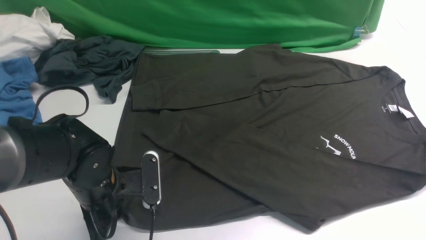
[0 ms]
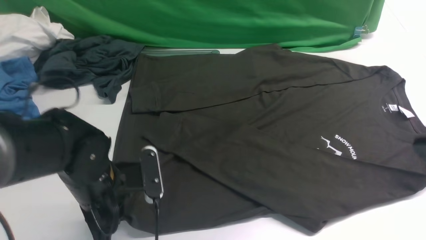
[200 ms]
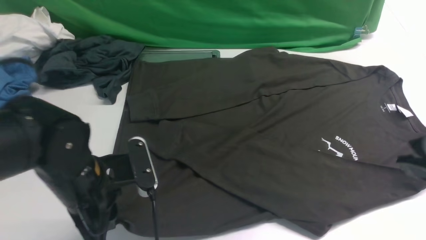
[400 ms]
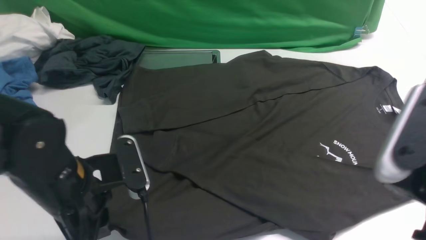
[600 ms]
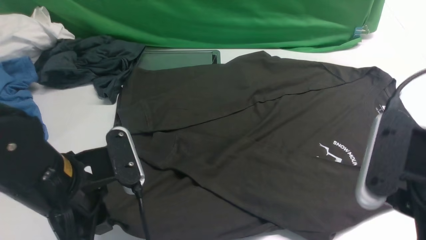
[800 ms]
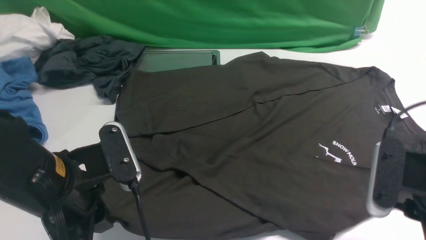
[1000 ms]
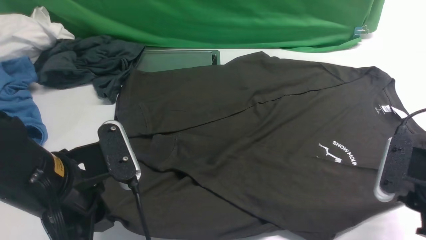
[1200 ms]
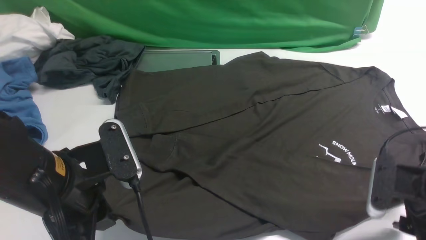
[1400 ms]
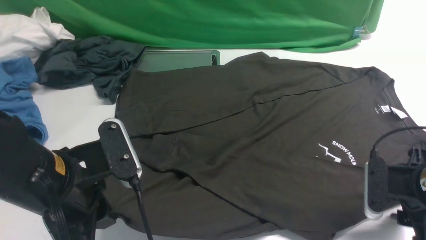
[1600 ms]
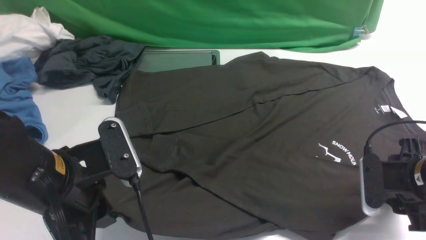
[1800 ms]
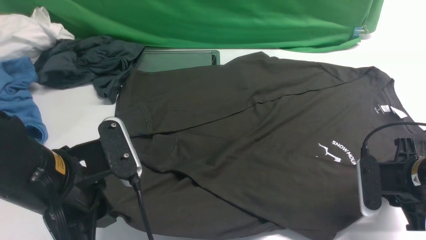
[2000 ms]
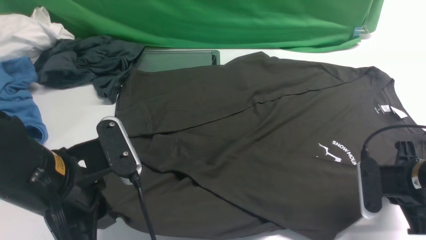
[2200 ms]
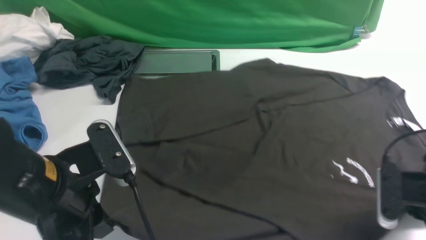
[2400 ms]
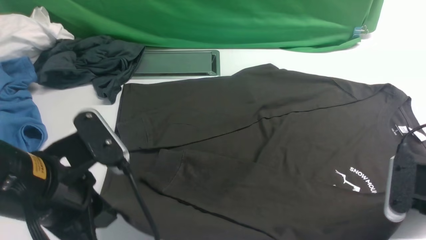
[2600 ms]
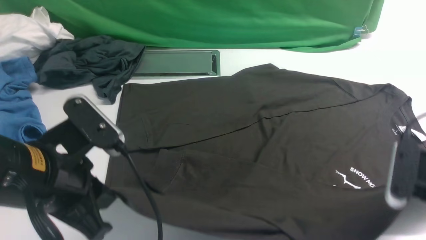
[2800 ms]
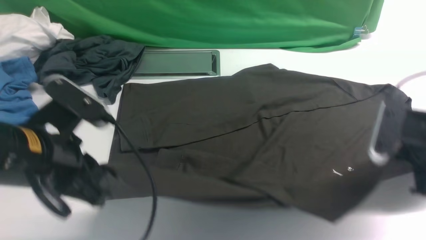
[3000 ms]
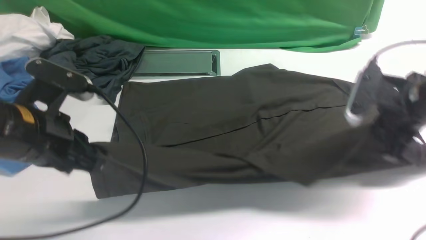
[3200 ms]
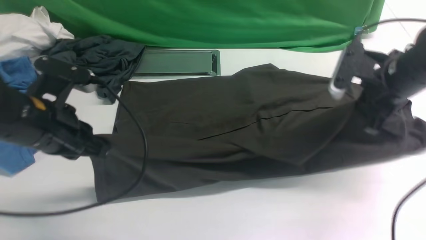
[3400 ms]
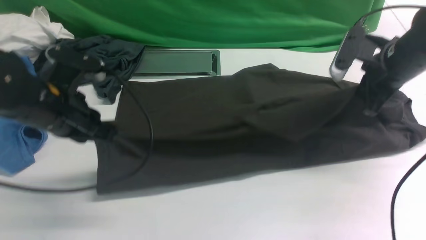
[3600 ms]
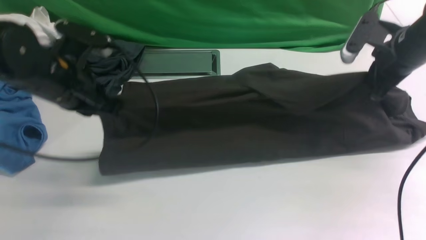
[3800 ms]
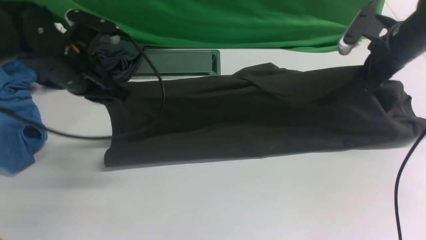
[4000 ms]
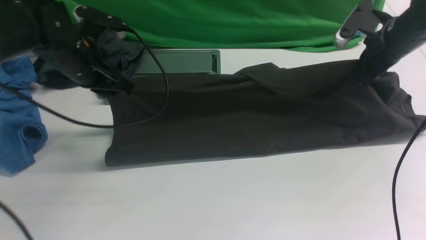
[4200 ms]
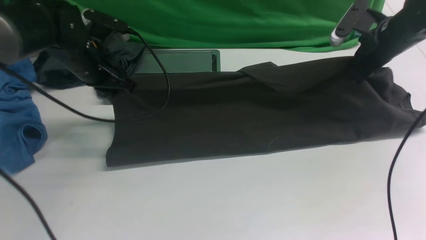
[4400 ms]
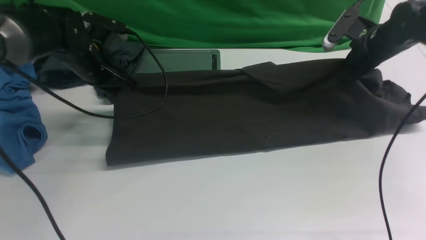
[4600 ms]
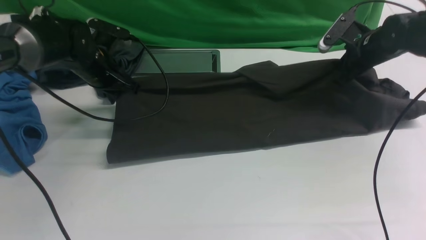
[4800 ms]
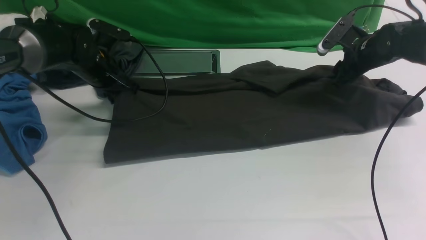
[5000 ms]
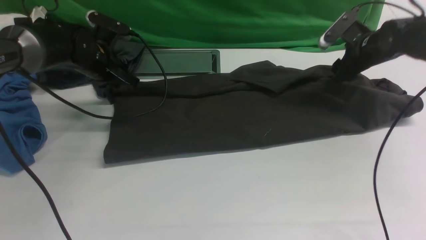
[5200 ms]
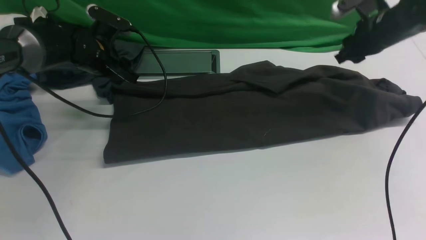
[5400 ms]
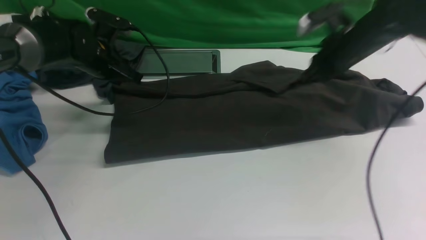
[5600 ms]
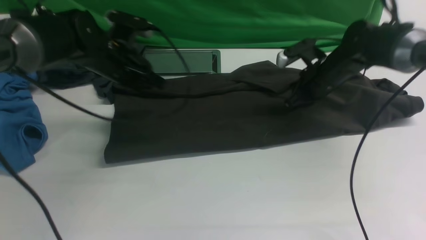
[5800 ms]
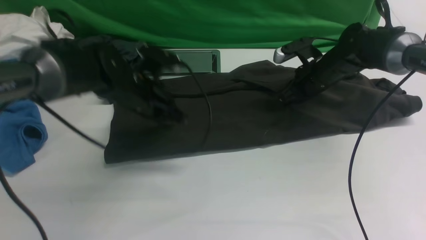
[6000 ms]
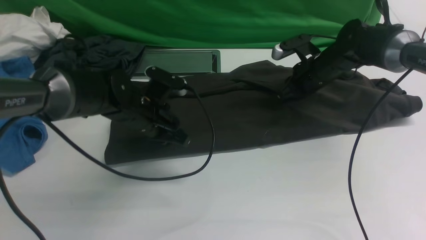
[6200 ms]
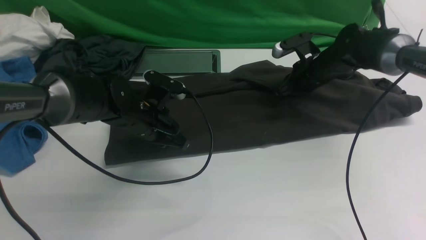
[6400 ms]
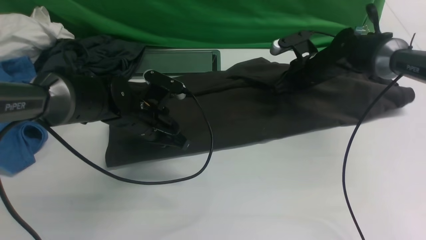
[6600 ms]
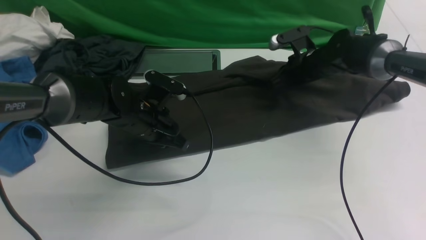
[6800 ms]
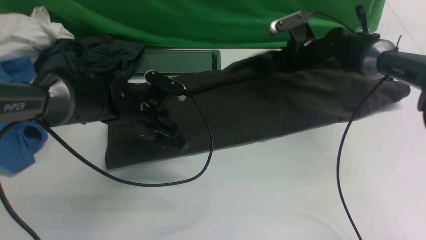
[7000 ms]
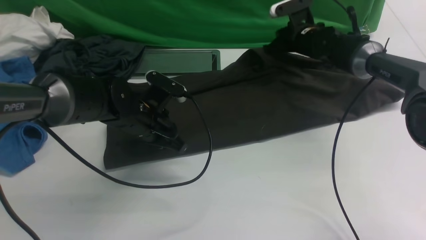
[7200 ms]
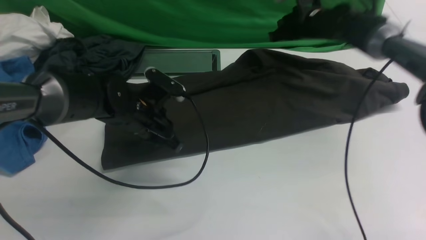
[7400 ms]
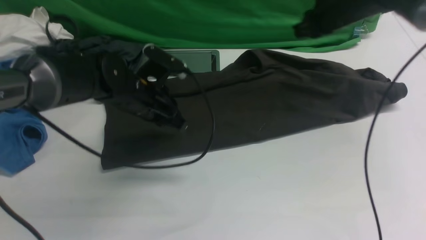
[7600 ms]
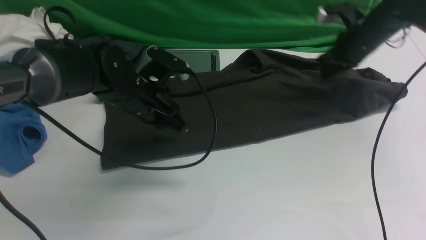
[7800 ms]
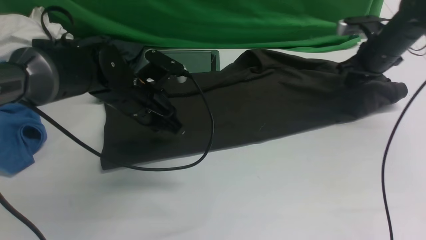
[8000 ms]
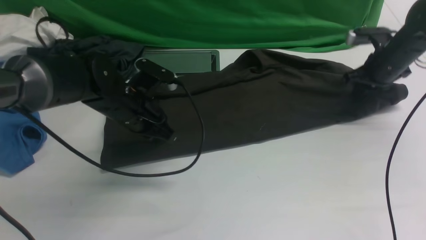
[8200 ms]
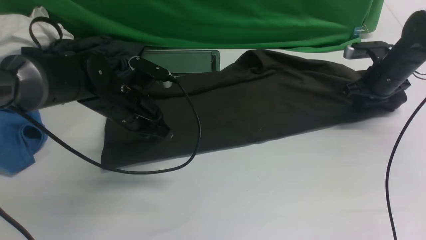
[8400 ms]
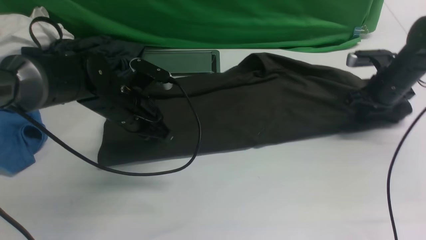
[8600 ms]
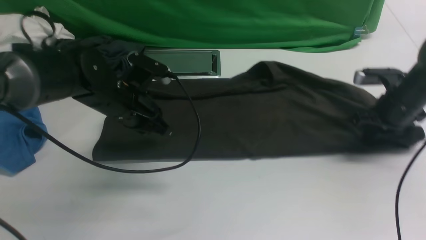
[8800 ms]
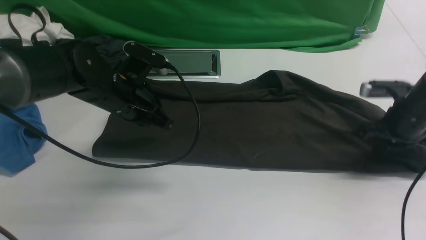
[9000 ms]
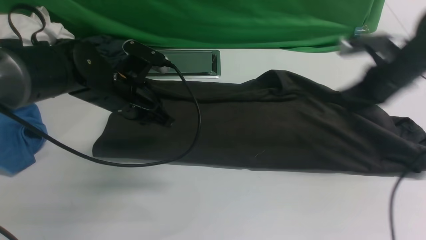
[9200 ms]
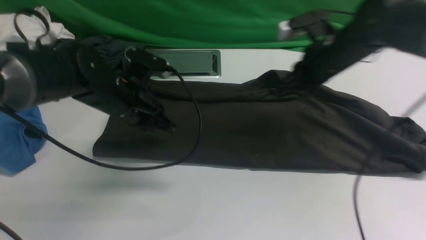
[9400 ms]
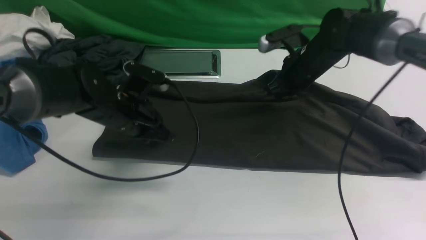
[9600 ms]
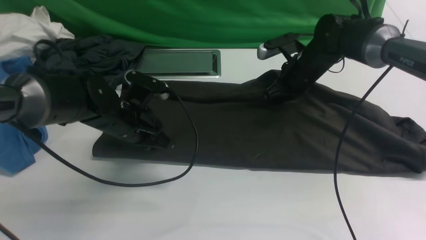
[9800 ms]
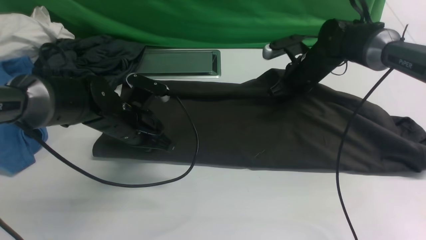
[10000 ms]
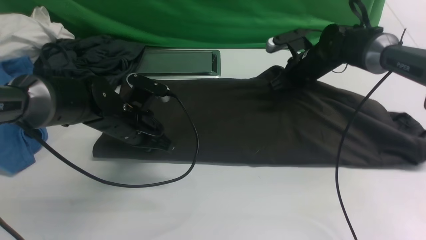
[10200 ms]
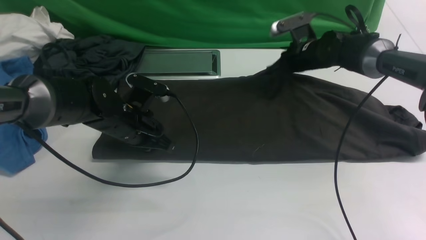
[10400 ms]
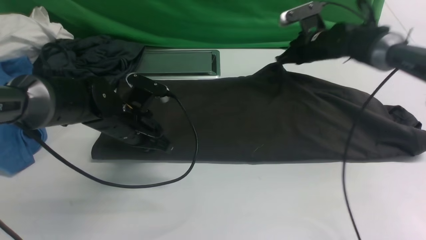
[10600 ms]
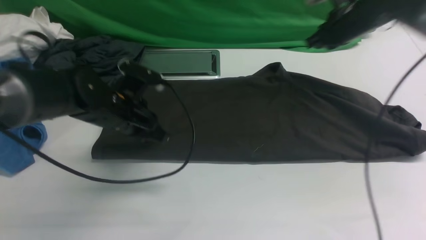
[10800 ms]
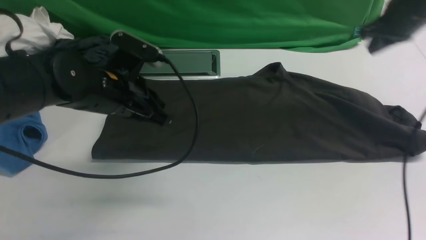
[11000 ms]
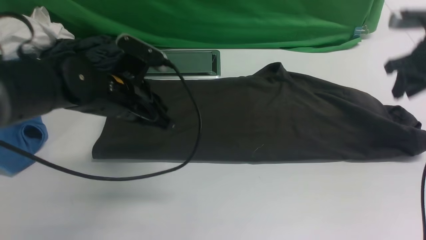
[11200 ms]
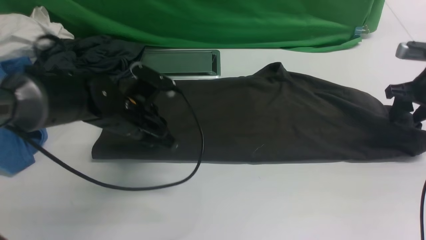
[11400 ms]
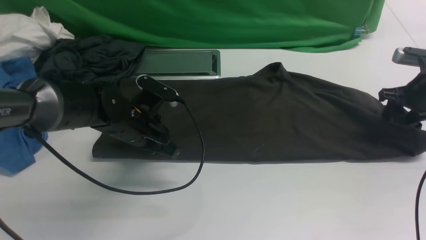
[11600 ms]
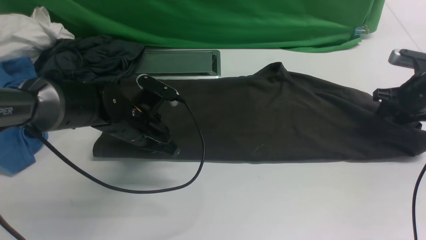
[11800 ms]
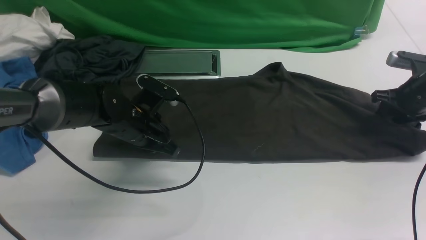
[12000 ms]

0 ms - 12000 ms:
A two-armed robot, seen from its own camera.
Step, 0 ms - 2600 ms: use both arms simultaneously to clamp the lower edge of the clothing fabric.
0 ms - 1600 ms: The left gripper moves upward and backward, roughly 10 cm, while the right gripper travels downward and forward by about 30 cm, and opens up.
1600 ms - 3000 ms: The right gripper heads upward, covering about 10 cm, and closes its fingers.
3000 ms - 4400 ms: Both grippers move forward, some 20 cm.
4400 ms - 6000 ms: The right gripper is displaced to the left and downward by approximately 10 cm, and opens, then closes once more. Meanwhile the left gripper goes approximately 10 cm to the right, and opens, then closes again.
6000 ms - 7600 ms: The right gripper travels upward and forward by about 10 cm.
7600 ms - 9000 ms: The right gripper heads backward, covering approximately 15 cm.
9000 ms - 10400 ms: The right gripper moves forward and to the left, some 20 cm, while the left gripper is displaced downward by approximately 5 cm.
10400 ms - 12000 ms: The right gripper heads to the right and backward, covering approximately 20 cm, and opens its fingers.

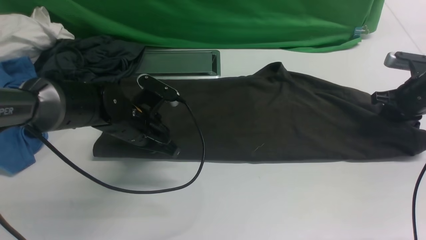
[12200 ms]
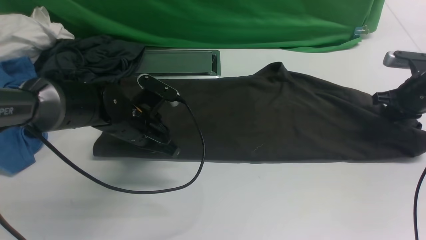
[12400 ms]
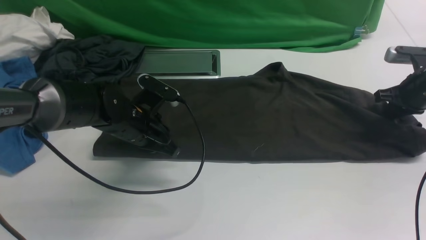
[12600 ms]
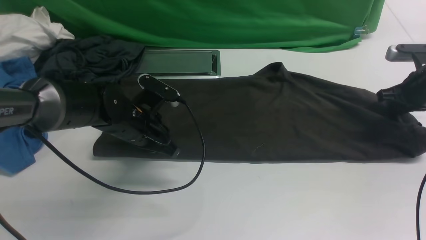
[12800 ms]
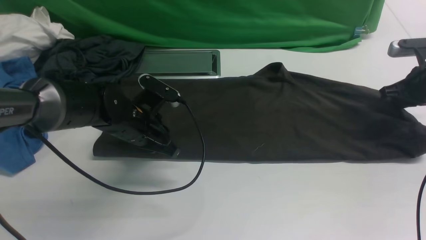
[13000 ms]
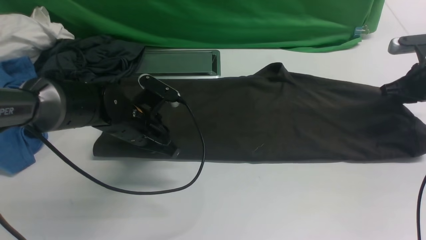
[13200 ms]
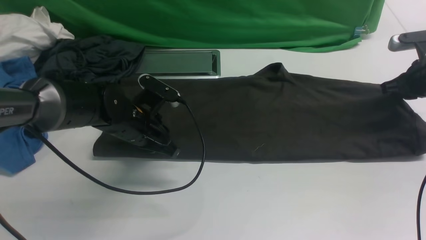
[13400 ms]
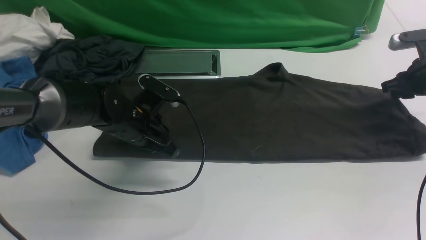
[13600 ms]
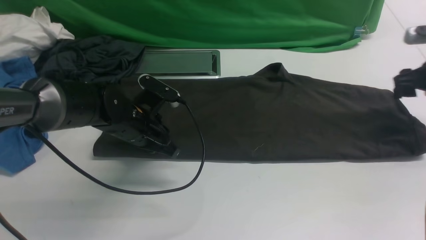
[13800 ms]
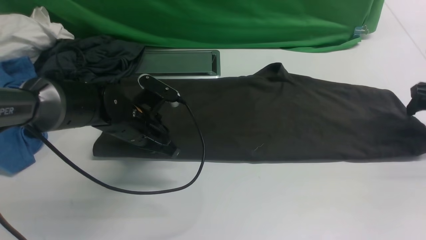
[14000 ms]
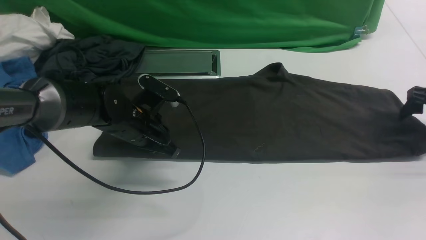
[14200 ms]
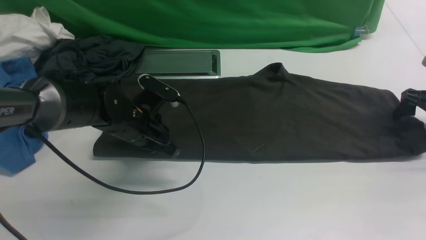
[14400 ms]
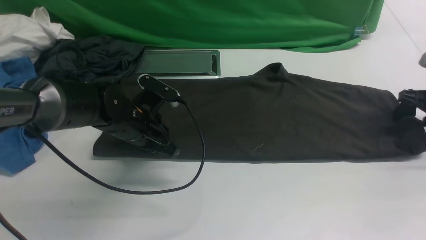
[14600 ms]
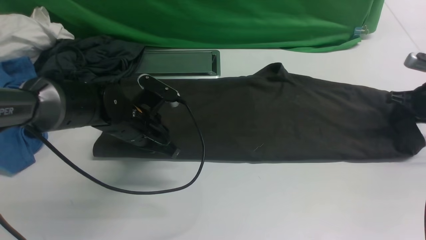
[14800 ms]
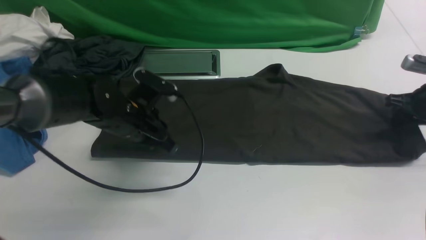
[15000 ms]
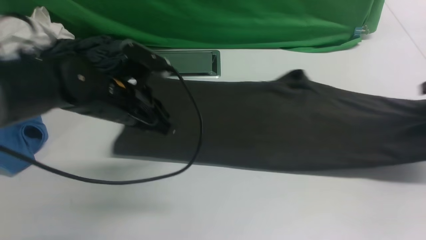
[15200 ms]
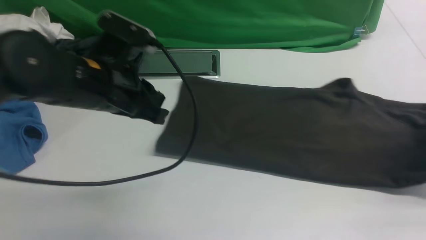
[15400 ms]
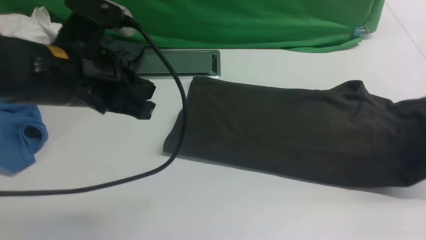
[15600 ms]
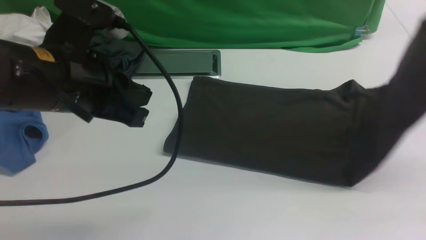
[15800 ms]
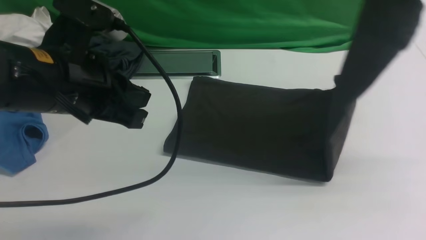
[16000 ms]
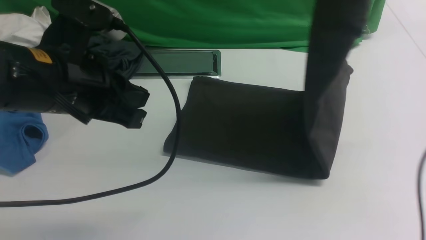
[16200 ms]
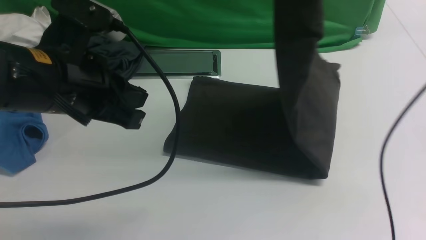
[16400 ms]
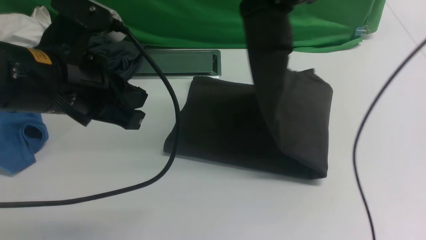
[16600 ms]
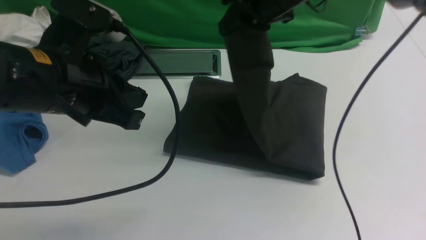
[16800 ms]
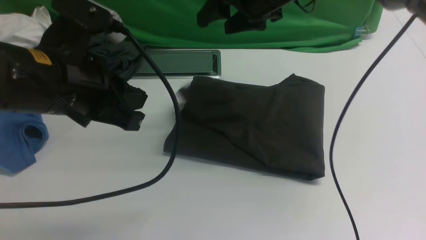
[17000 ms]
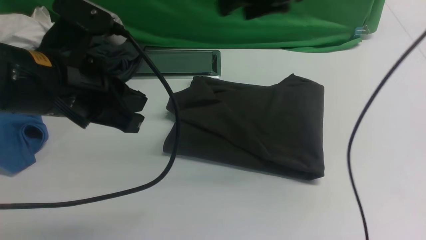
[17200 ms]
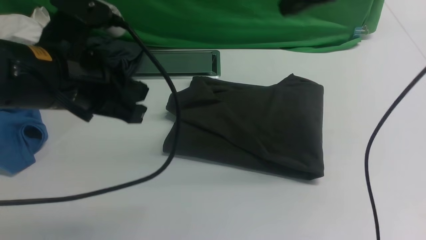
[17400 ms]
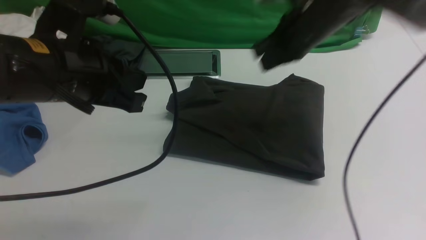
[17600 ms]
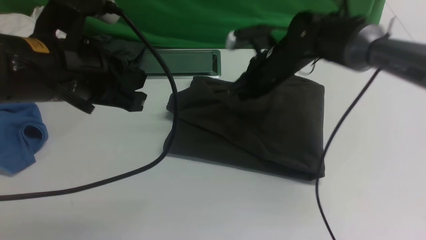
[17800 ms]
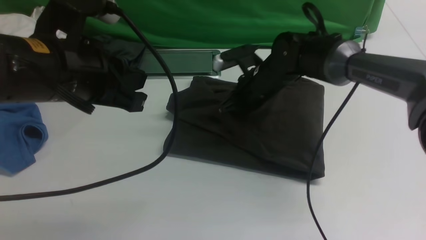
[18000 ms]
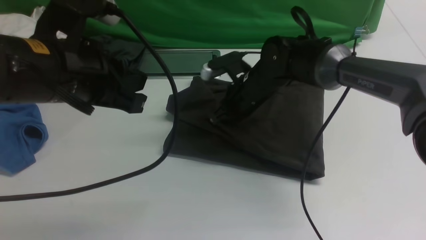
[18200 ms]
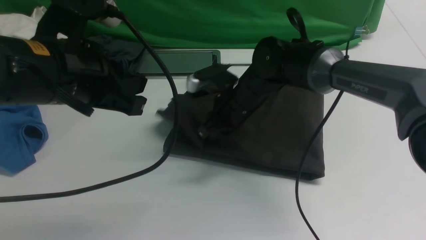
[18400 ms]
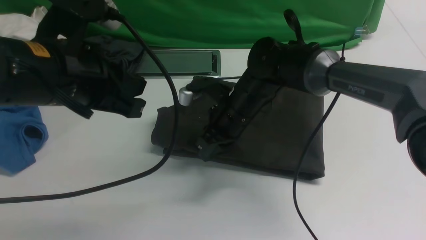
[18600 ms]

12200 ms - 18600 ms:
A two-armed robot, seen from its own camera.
Step, 14200 ms - 15200 ms: use the right arm to clamp the right edge of the fabric.
Step, 15400 ms - 17400 ms: use the right arm to drag the right edge of the fabric to the left and folds it over the left edge.
12200 ms - 13800 ms: The right gripper ends up approximately 5 cm from where it was, and opens up.
13800 ms - 15400 ms: The left gripper goes some 15 cm upward and backward. The right gripper travels upward and backward by about 10 cm, and closes up.
15400 ms - 17000 ms: The left gripper moves about 5 cm. Meanwhile the right gripper goes roughly 35 cm to the left, and opens.
17000 ms - 18600 ms: The right gripper shifts some 15 cm downward, and closes.
